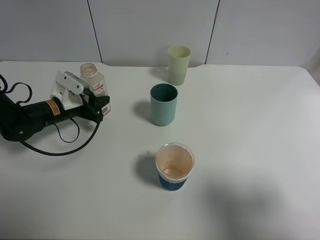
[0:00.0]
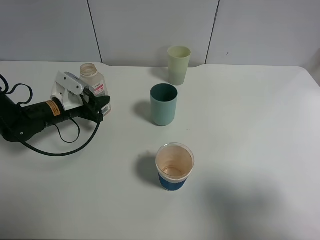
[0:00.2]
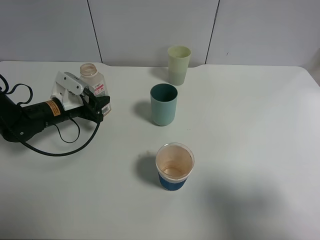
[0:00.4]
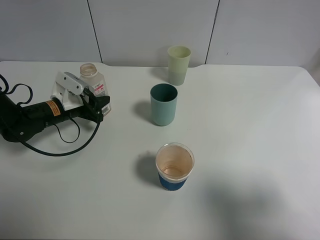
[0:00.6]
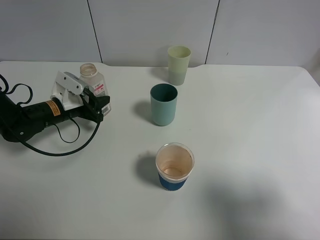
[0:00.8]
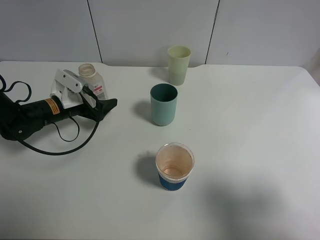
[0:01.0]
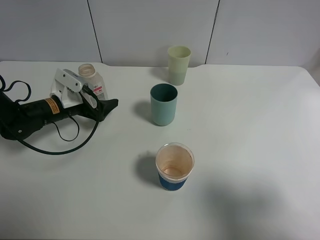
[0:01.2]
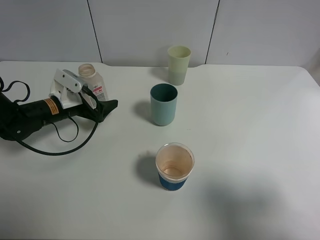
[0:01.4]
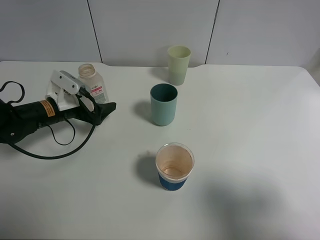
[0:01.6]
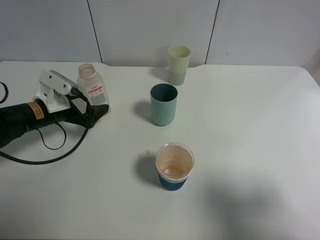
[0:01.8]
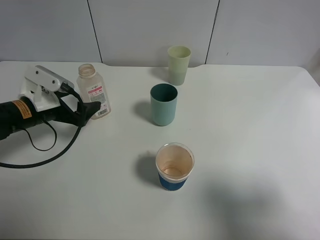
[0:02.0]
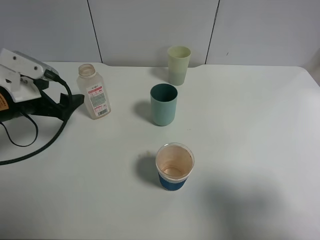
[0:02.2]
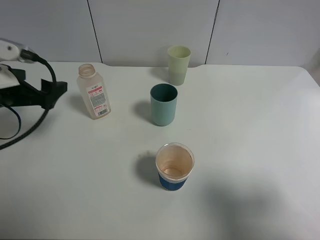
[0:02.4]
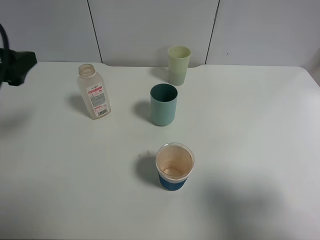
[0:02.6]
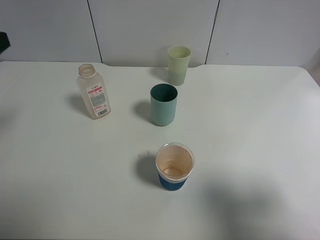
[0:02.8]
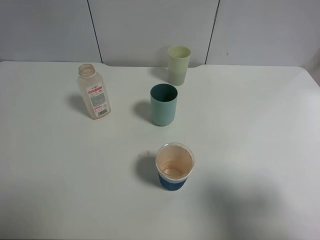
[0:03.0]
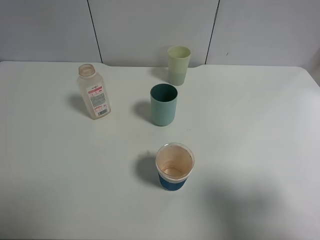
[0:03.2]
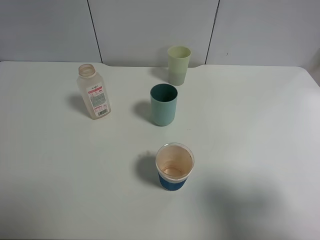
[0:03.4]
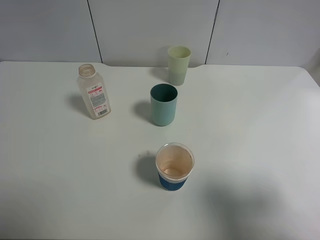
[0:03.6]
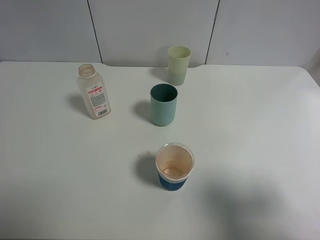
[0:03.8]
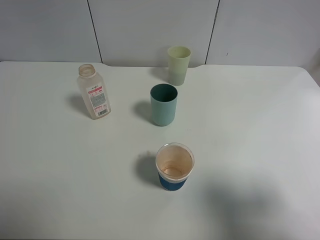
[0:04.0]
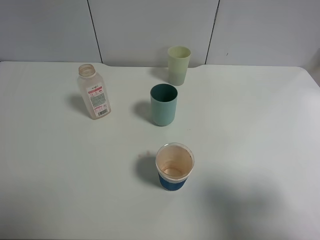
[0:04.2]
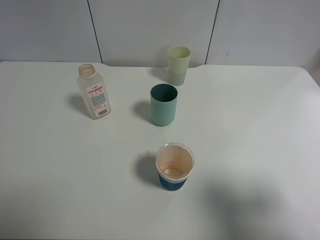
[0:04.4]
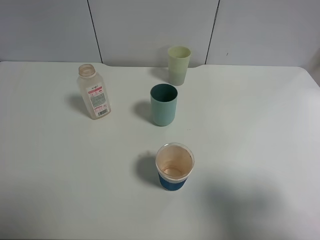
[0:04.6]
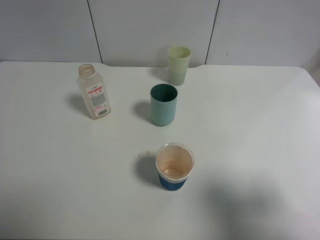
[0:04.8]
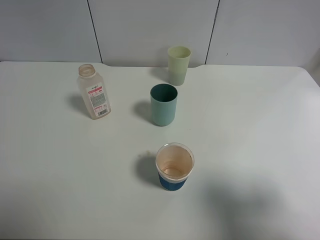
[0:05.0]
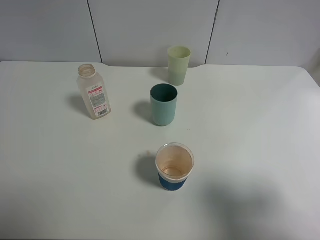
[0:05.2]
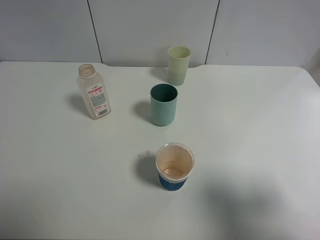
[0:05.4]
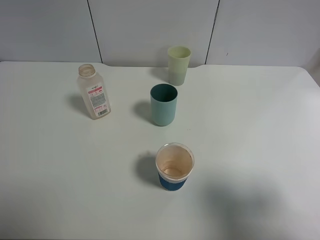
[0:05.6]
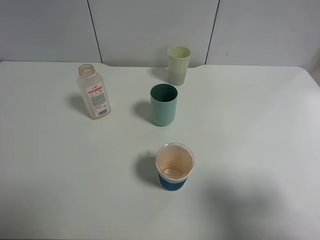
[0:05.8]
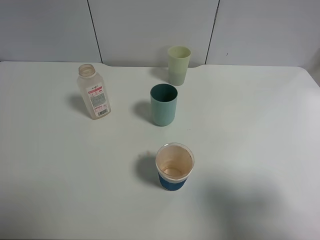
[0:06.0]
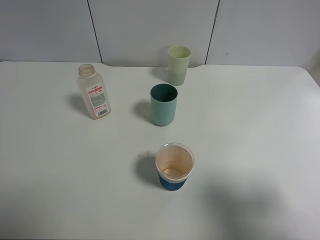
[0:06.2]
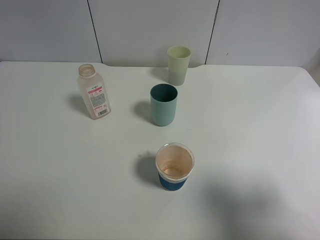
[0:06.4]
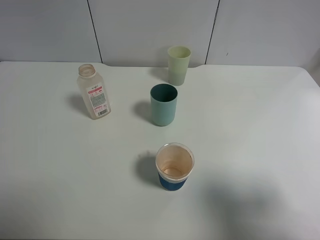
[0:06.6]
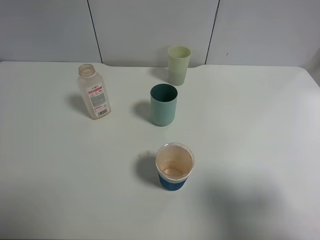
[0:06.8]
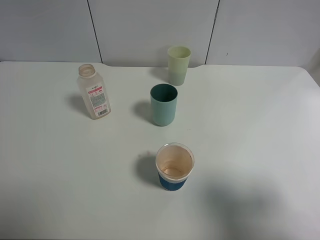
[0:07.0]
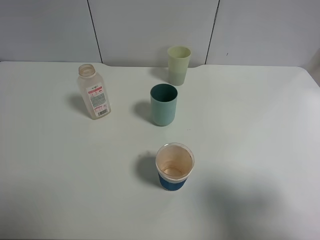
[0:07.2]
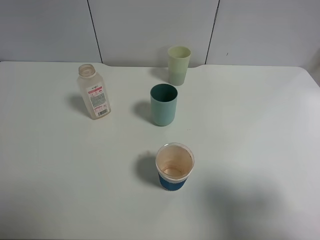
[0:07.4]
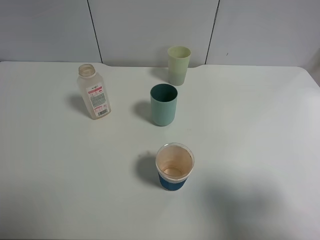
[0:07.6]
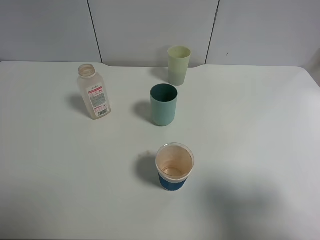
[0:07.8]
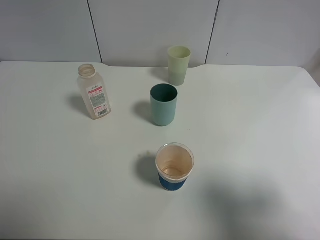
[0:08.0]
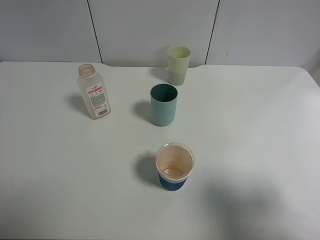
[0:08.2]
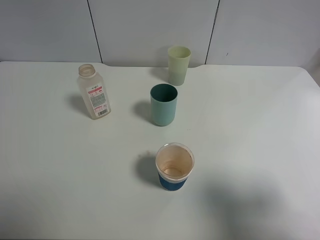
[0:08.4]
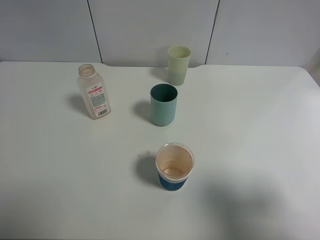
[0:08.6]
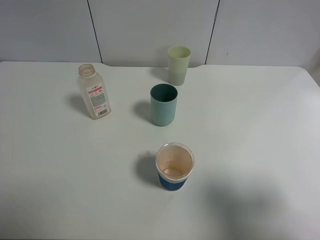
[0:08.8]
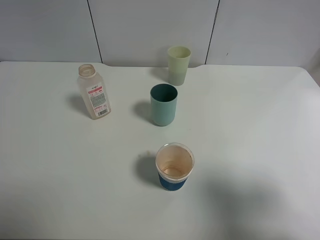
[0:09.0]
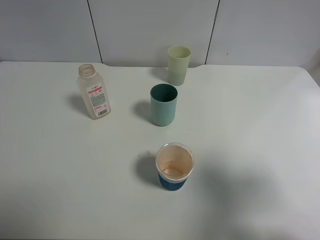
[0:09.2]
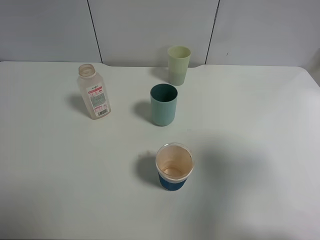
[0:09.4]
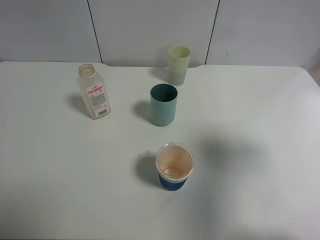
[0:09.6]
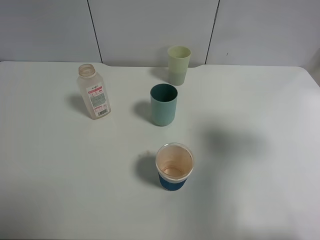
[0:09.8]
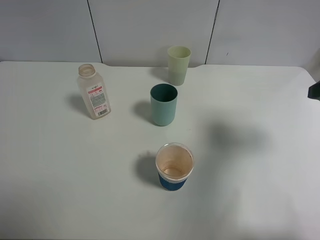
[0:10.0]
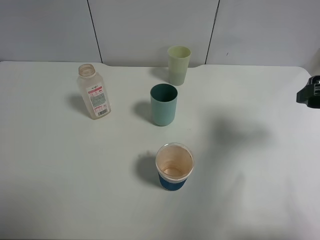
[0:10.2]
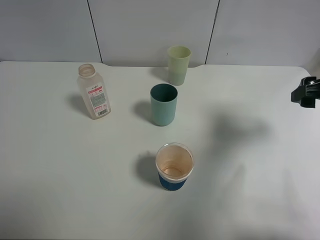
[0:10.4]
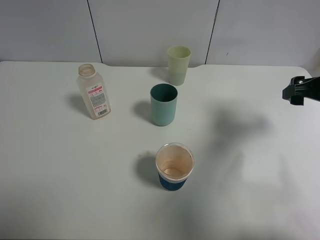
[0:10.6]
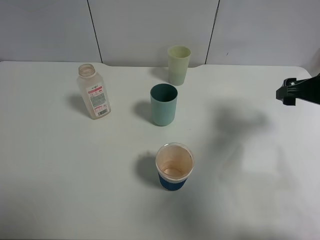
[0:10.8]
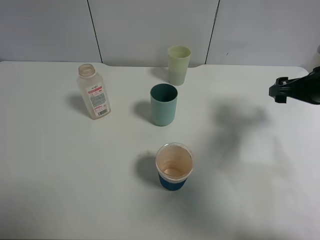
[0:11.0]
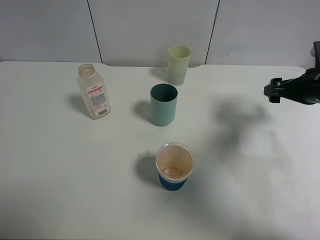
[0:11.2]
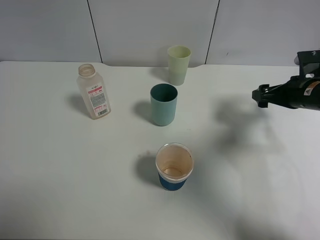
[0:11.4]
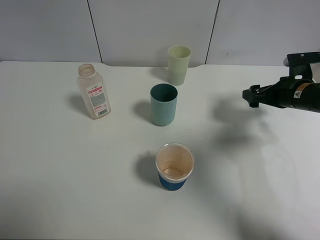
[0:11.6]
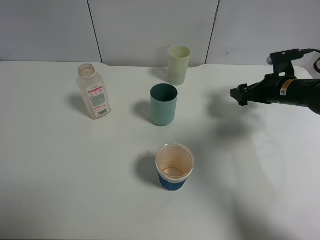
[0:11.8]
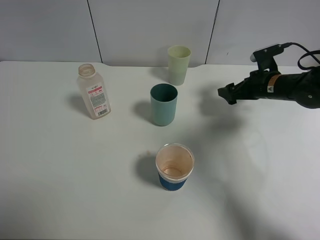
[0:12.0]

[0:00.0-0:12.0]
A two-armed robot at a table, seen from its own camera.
Task of the whole recording: use a clamp to hold the bottle of the drink, pour the beverage into a random cup, then clamp the cup containing the drink and pour the drink into another random cup.
0:00.0 to 0:01.6: The left gripper opens.
0:01.6 to 0:03.0: The left gripper is displaced upward and backward by some 30 cm.
0:06.0 to 0:07.6: Both grippers stay about where they are.
0:09.0 to 0:10.4: The right gripper moves forward, about 20 cm.
0:10.4 to 0:12.0: The right gripper moves forward and downward, approximately 20 cm.

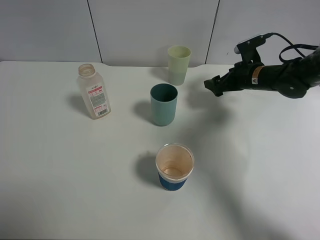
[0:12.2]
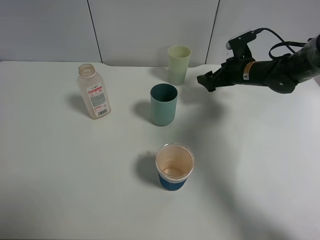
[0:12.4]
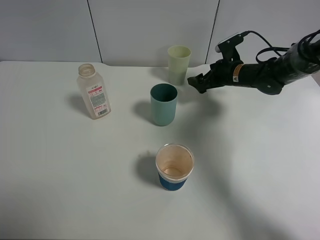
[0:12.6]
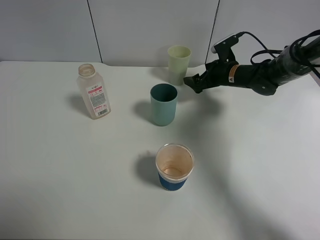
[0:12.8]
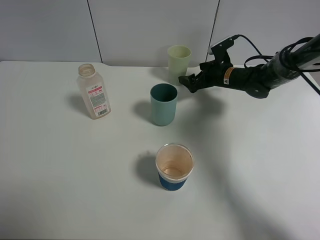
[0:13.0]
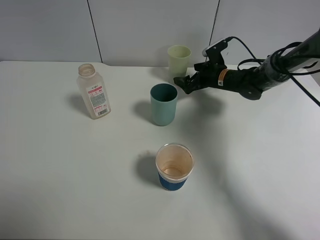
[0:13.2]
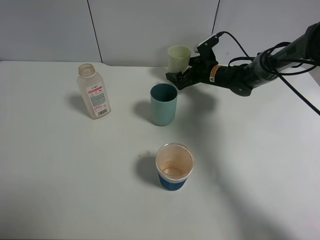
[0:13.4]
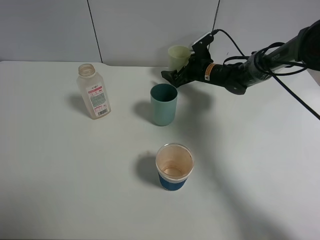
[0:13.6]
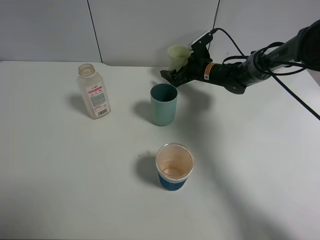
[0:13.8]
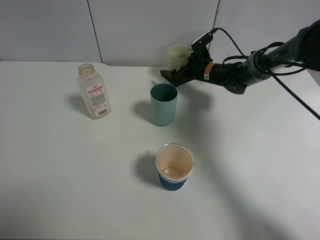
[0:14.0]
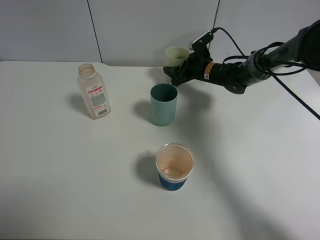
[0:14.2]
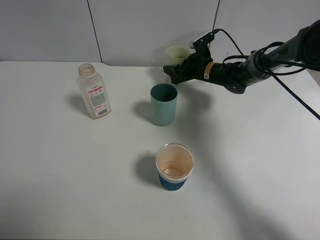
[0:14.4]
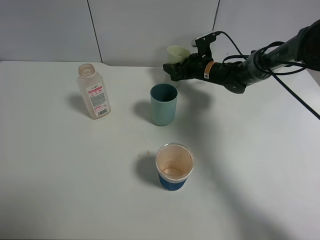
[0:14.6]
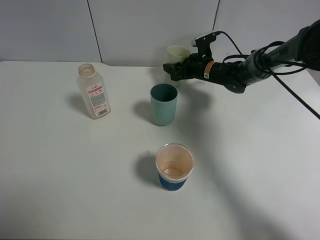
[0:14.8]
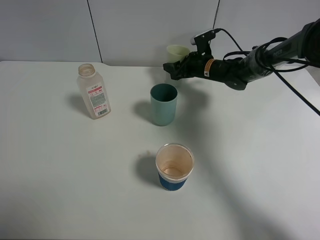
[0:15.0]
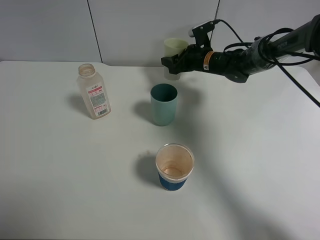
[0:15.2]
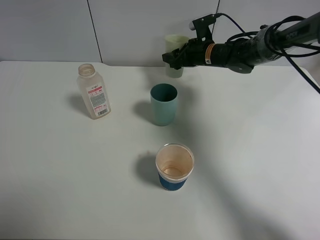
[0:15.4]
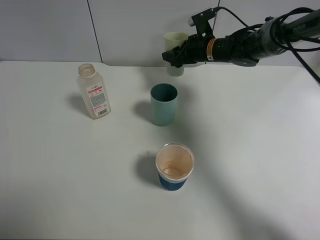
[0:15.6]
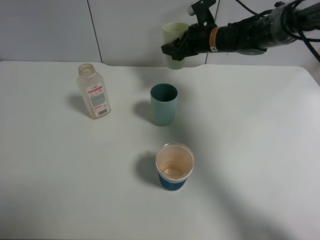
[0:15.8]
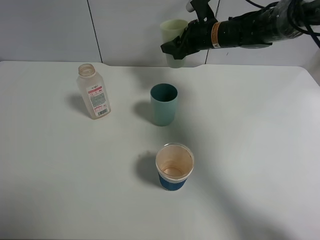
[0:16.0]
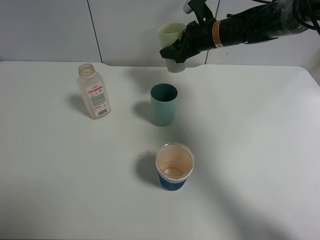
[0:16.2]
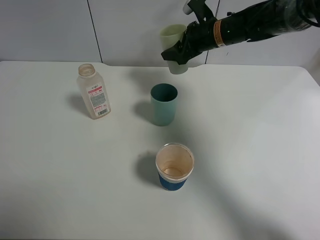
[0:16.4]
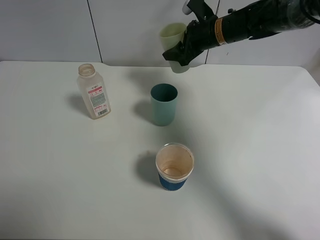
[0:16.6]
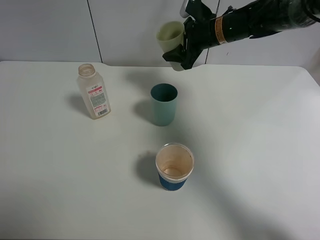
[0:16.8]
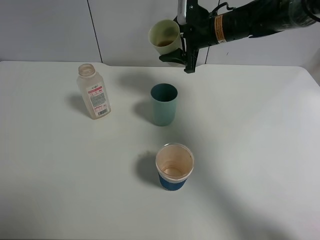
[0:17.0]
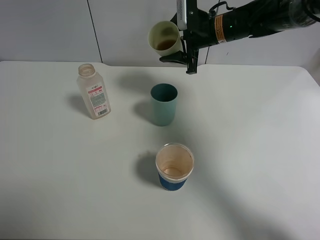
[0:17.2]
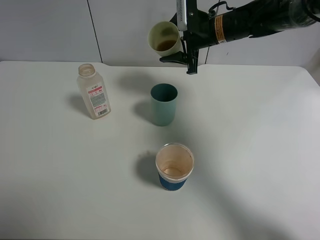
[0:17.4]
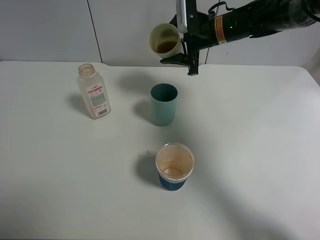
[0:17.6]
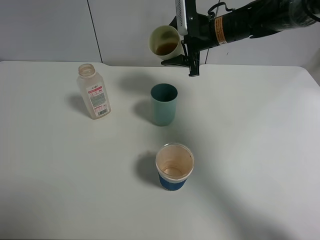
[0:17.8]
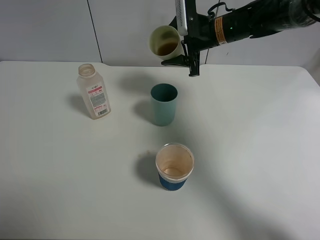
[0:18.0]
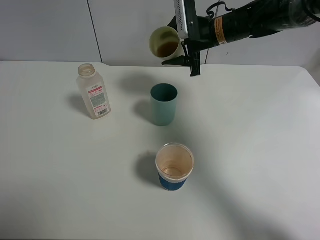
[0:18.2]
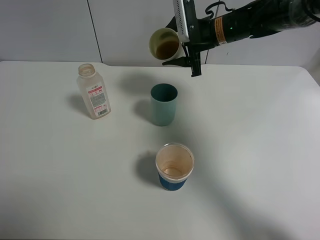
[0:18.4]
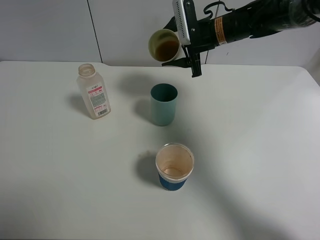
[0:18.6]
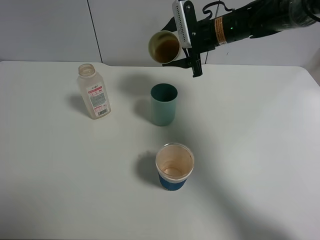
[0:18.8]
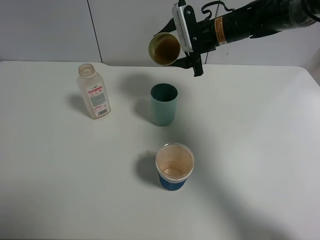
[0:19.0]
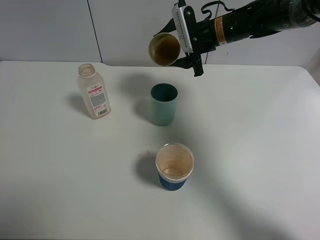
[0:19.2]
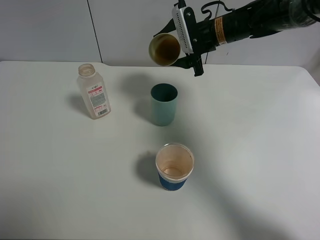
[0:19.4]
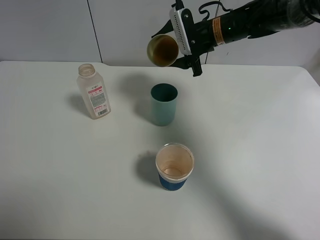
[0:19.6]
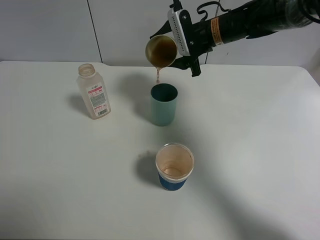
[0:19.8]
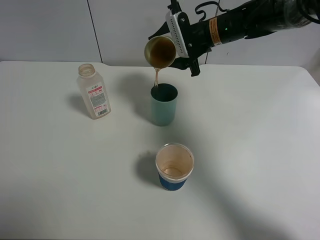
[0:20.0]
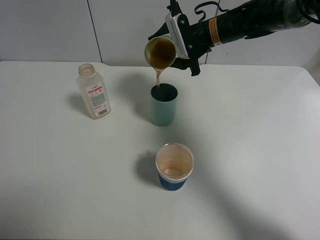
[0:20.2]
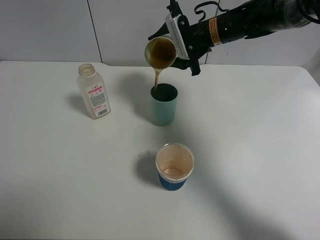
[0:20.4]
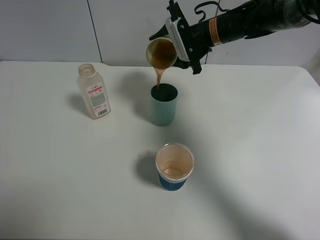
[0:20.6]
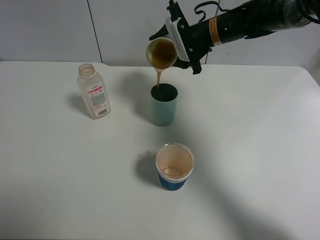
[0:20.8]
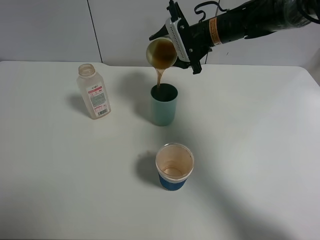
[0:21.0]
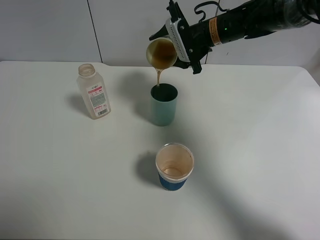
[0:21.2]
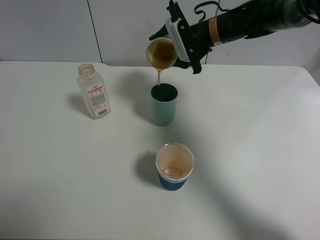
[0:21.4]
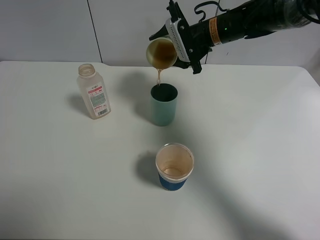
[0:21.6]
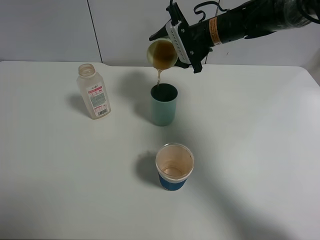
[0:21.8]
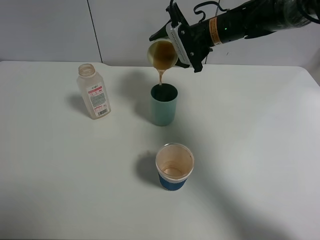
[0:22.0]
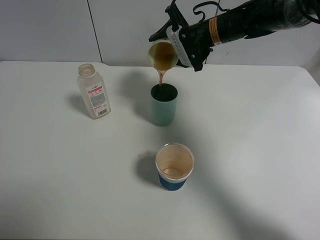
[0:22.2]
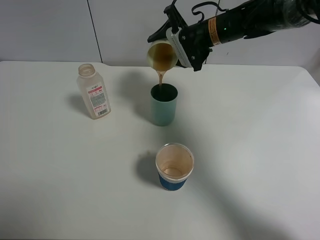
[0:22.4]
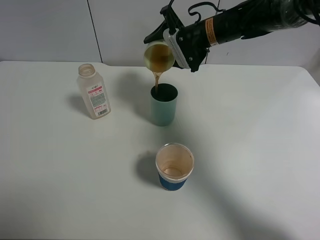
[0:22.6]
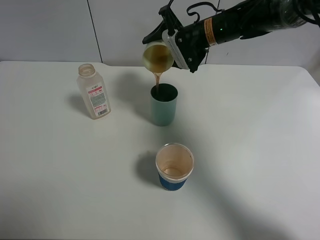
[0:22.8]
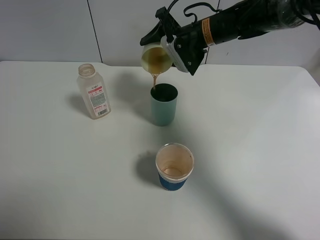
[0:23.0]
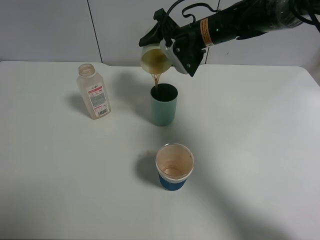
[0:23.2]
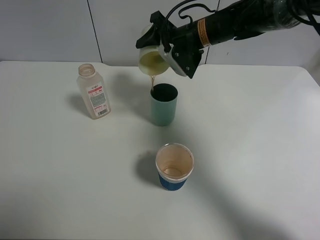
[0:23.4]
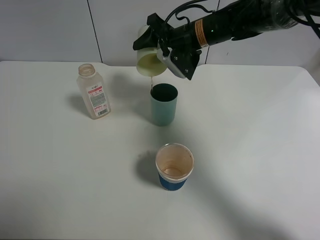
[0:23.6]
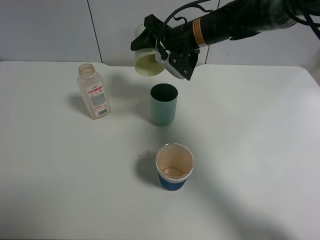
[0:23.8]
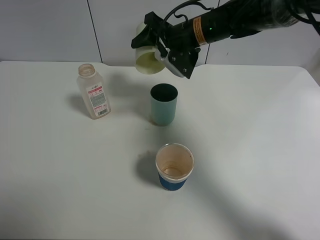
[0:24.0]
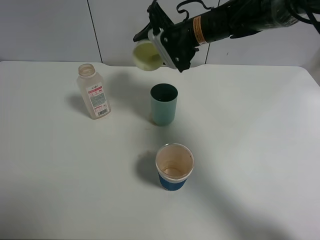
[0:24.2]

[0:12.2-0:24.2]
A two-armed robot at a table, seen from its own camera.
Task of the whole recording: use a clamp to hold the bottle of the drink, pour the beverage into a random cup, then clamp the cup containing the drink and pour the drink into another random cup.
Step, 0:12.2 to 0:15.8: Pick up the green plastic cup bottle with right gripper.
0:12.2 to 0:13.8: The right gripper travels to the left and forward by about 10 cm.
0:13.8 to 0:15.2: The right gripper closes up.
0:15.2 to 0:16.6: The right gripper goes about 10 cm upward.
0:19.8 to 0:21.2: The grippers stay close to where they were, moving slightly.
0:21.2 to 0:22.6: The grippers move only a little.
